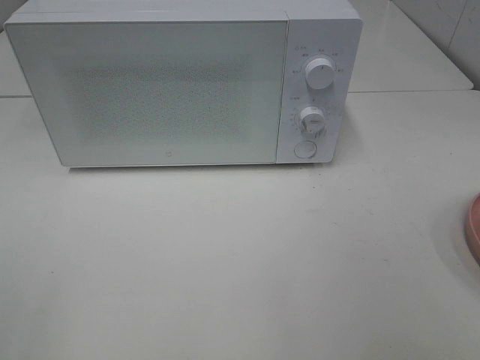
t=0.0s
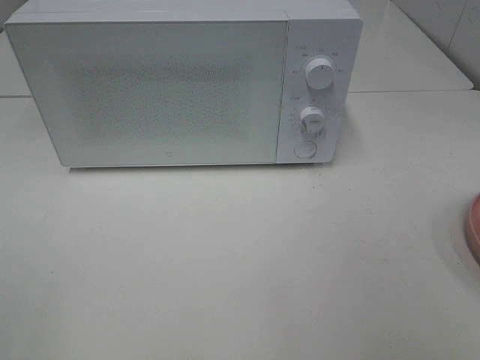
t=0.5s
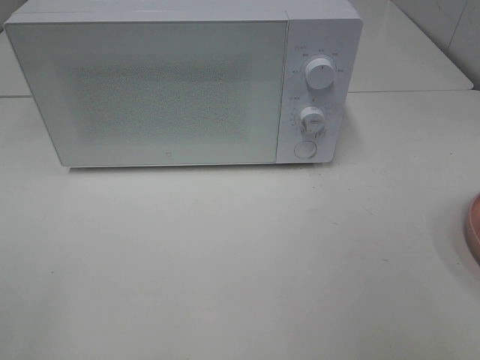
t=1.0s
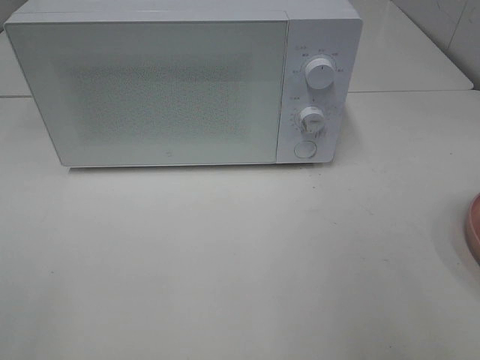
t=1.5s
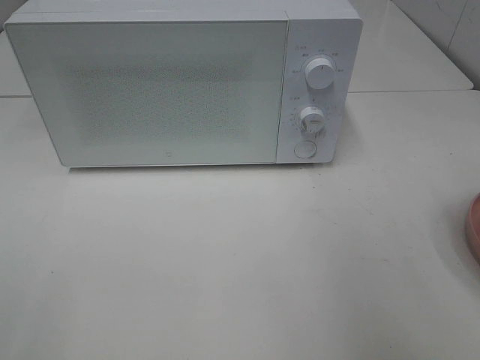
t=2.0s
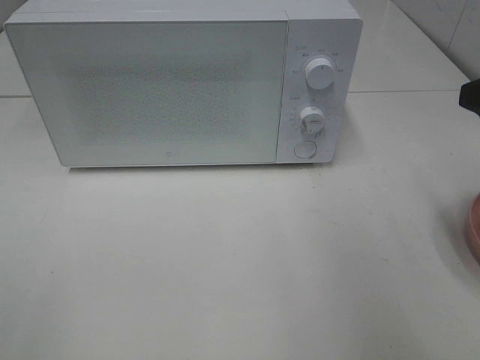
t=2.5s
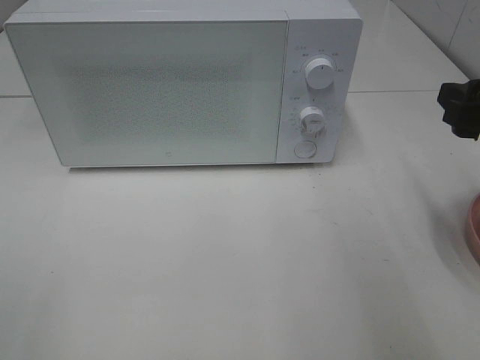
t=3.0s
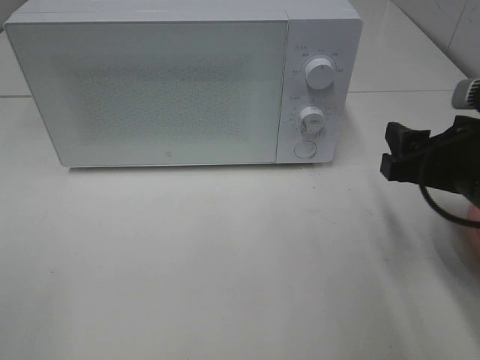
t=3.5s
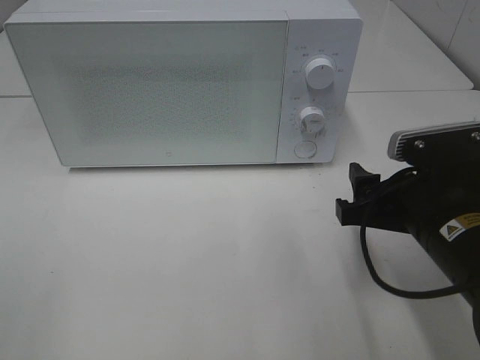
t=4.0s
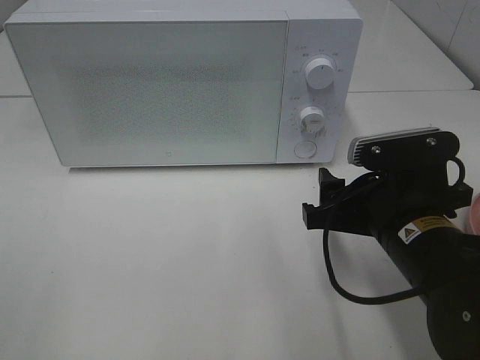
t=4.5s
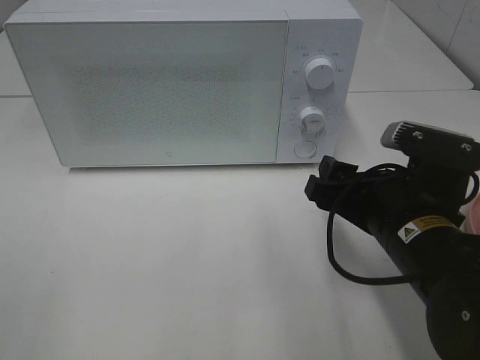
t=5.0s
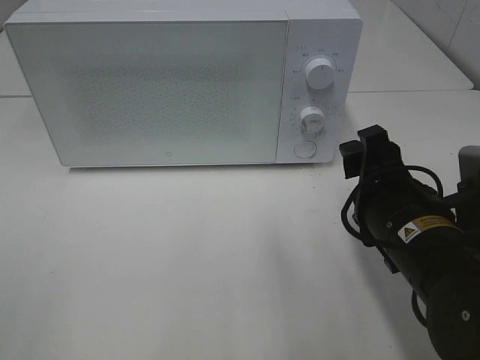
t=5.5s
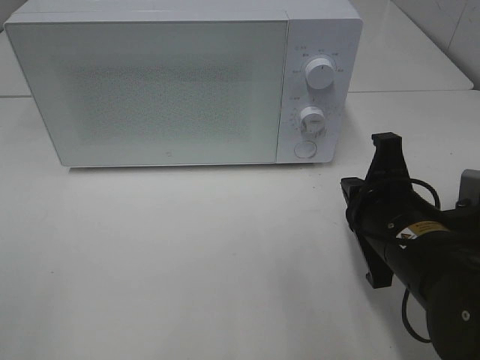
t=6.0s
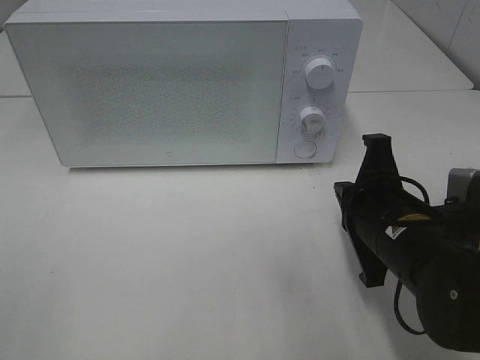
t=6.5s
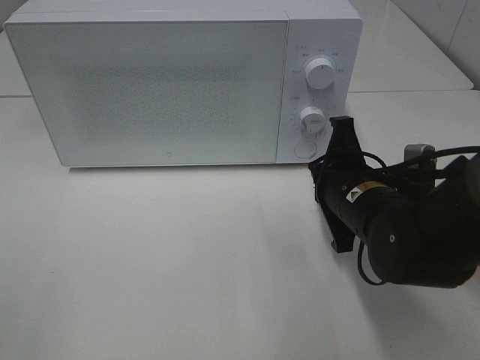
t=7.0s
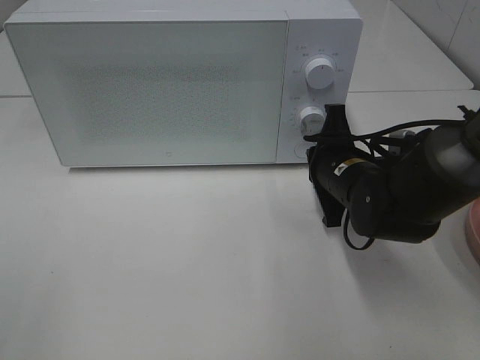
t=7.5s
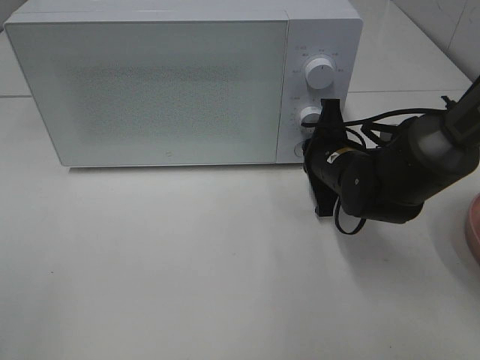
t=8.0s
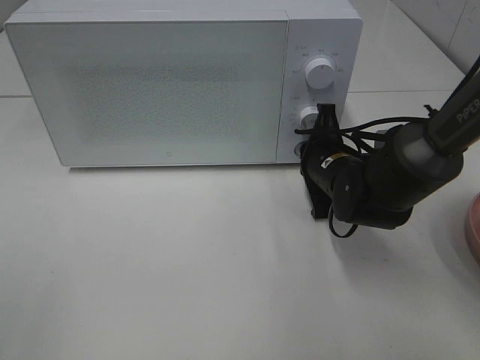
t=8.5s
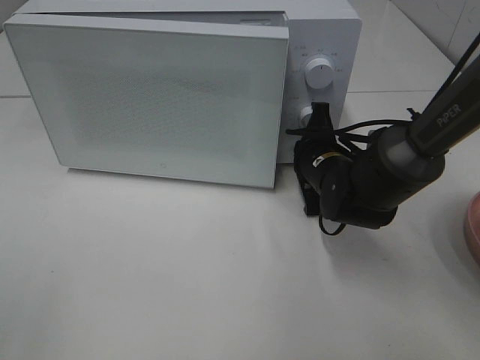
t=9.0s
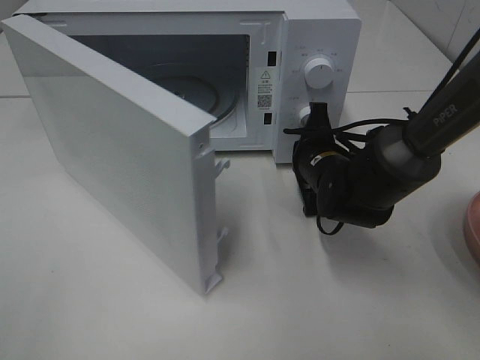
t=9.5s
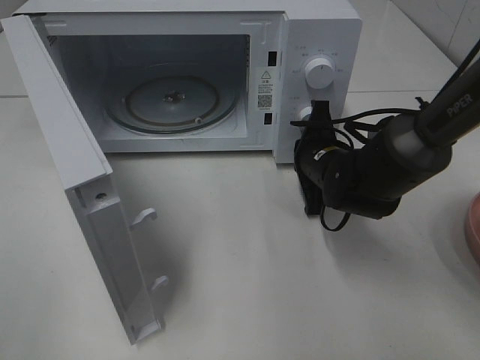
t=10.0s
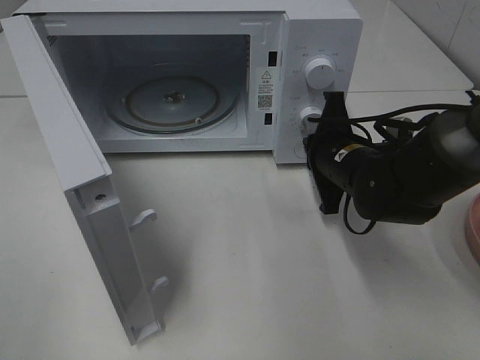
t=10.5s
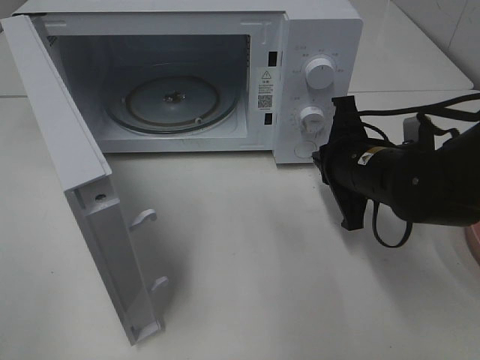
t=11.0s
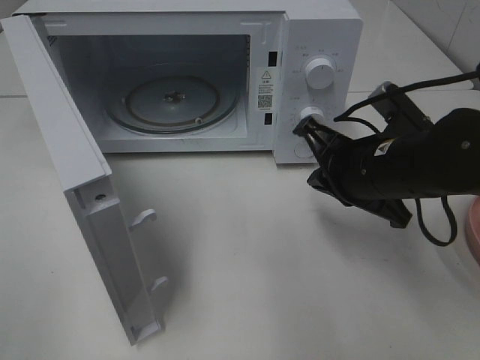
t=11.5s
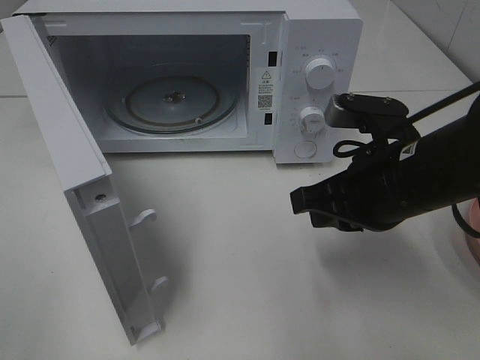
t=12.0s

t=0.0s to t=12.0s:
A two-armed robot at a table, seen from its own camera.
Task of the whole recording: Heat Sandwich.
Step, t=0.0s to t=10.5s: Right hand: press the switch.
t=2.0s to t=4.0s: The right gripper goes roughly 20 cm downward and to the left.
t=4.0s to t=6.0s: The right gripper closes its fingers.
t=6.0s to t=8.0s: The right gripper moves forward, approximately 15 cm.
t=10.0s to t=12.0s: The right gripper shifts some 15 cm backward and upward.

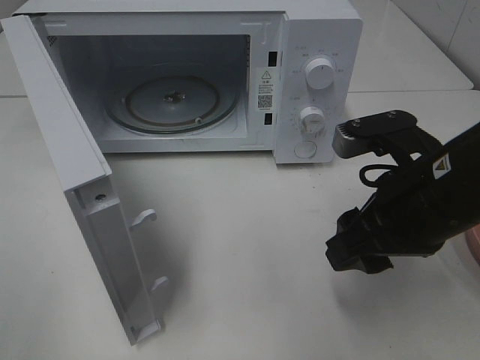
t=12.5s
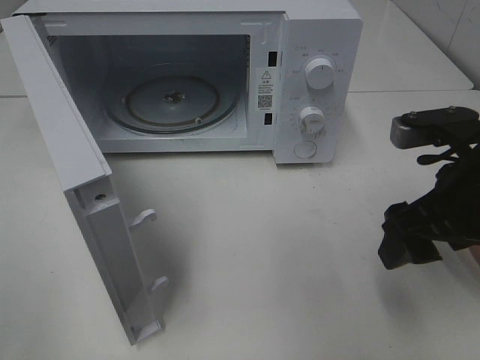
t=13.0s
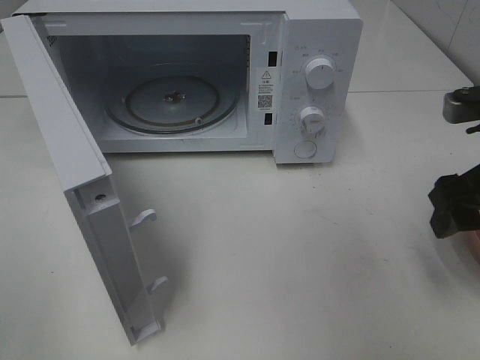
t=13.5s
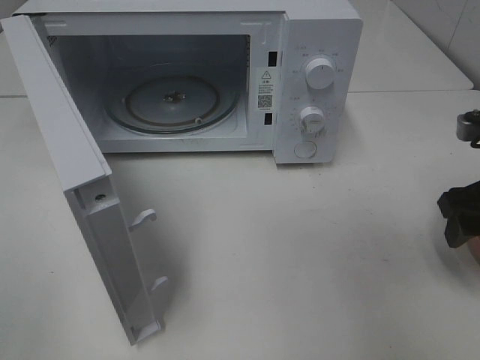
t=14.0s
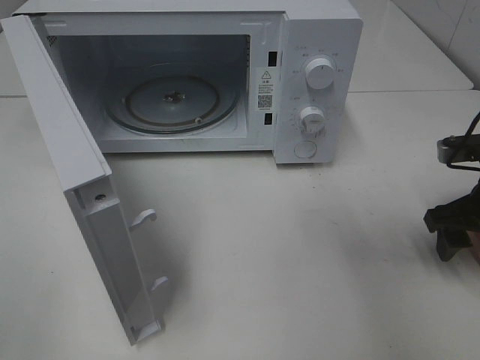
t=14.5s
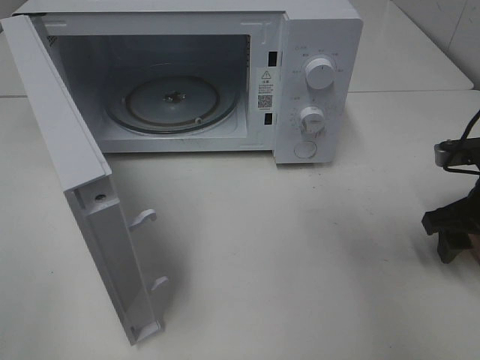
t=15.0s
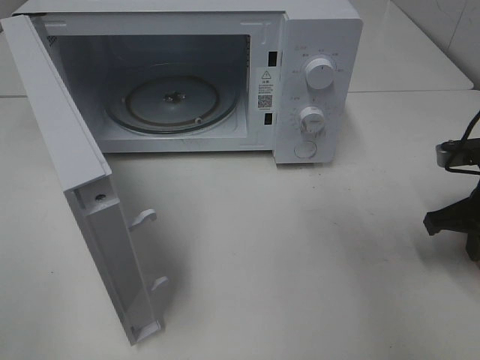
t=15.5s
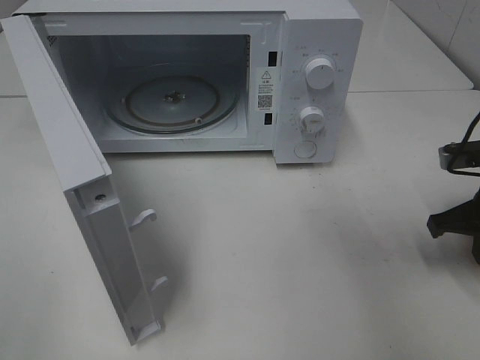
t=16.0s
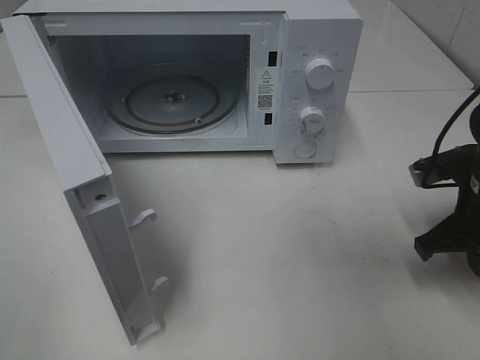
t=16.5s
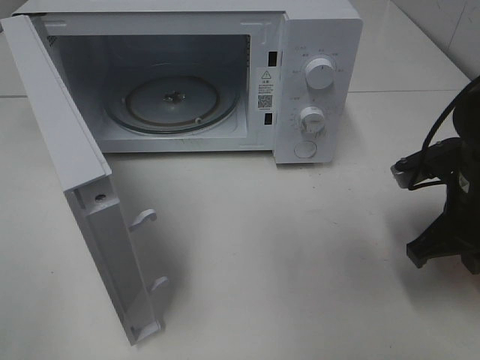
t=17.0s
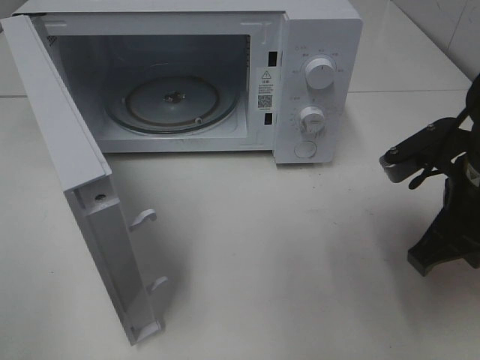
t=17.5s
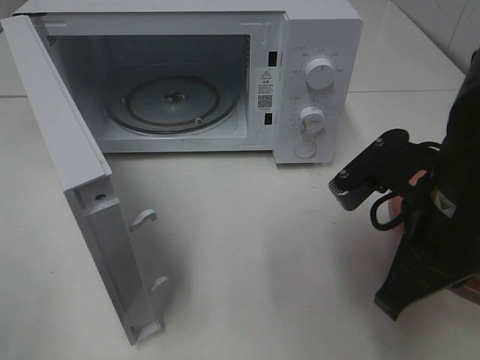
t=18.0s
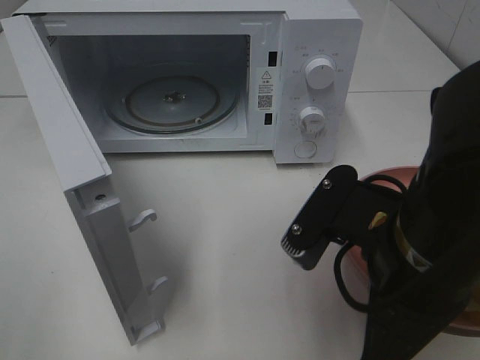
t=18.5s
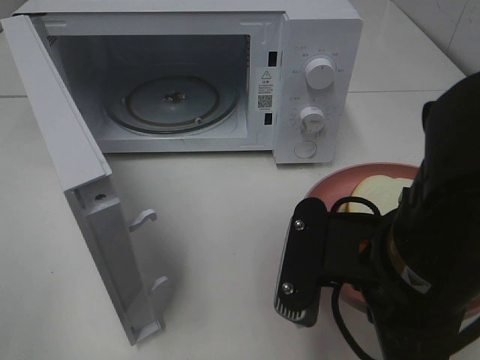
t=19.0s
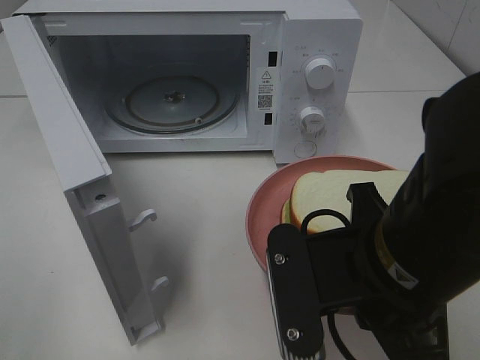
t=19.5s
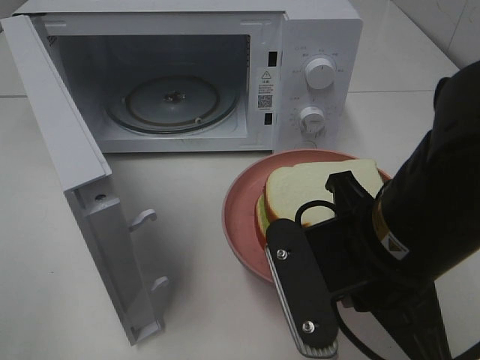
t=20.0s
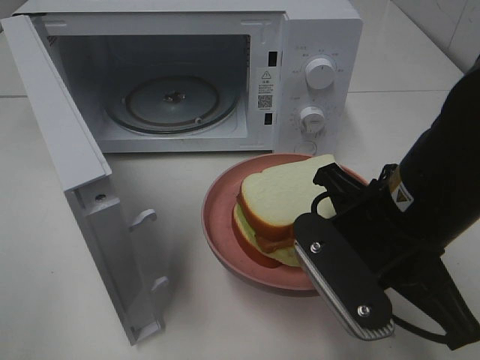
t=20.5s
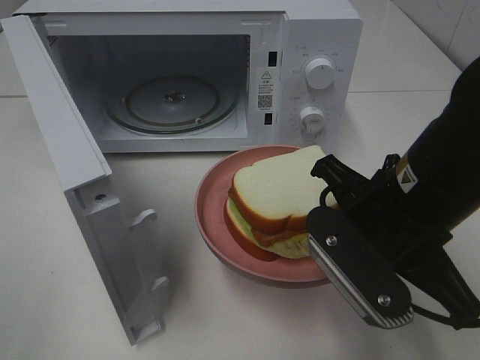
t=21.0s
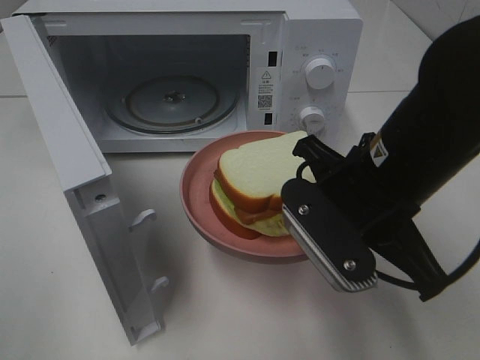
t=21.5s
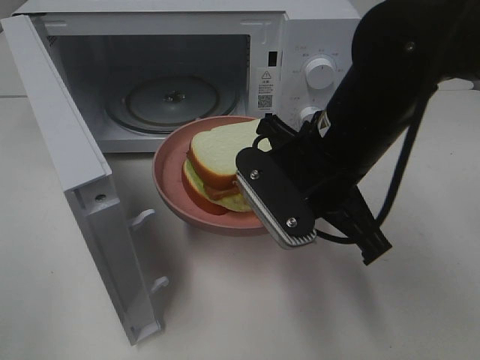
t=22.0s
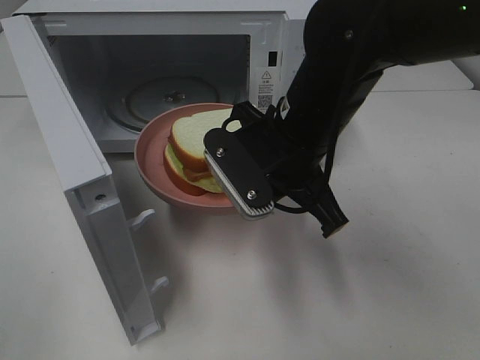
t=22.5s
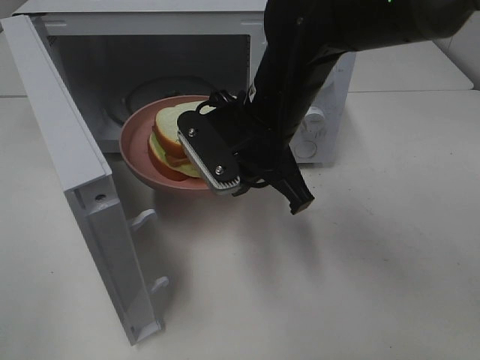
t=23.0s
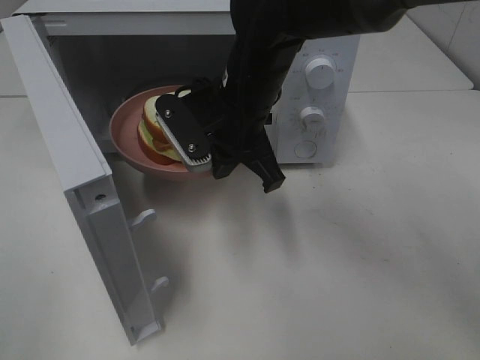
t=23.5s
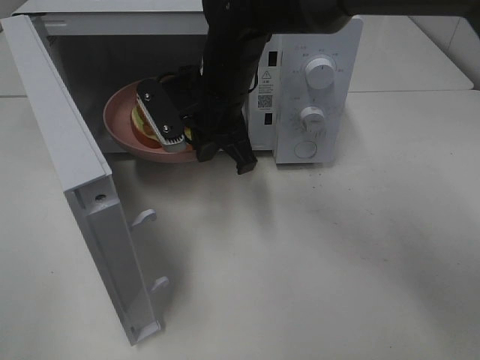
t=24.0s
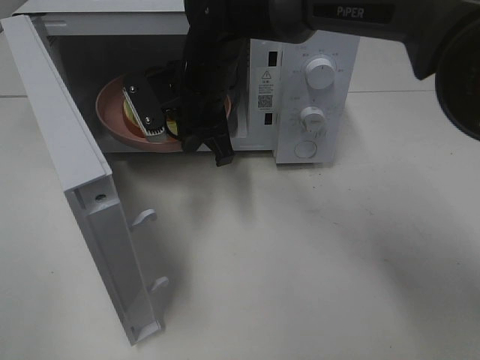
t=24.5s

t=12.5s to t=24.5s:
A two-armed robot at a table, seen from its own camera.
Task of the whole recording: Heat Sandwich.
Step, t=12.5s to t=15.0s: Right hand: grab the plate with the sandwich.
t=12.5s to t=14.5s: The right gripper shifts approximately 15 cm to the right, forward and downward.
t=14.5s to t=16.5s: The right gripper closes up.
t=16.5s to t=18.5s: The right gripper goes roughly 20 cm to the left, backward and upward.
t=20.5s to t=22.5s: The right gripper is displaced forward and to the left by about 10 cm.
t=22.5s to t=24.5s: The right gripper goes roughly 15 cm forward and to the left.

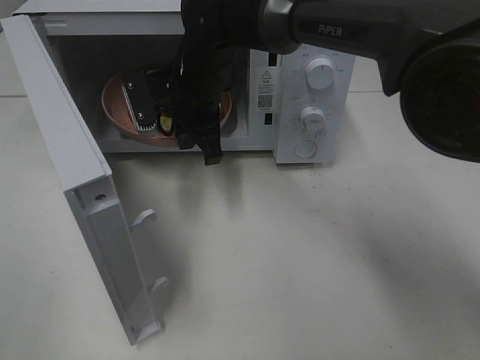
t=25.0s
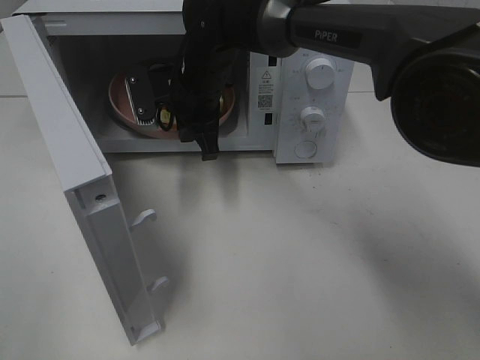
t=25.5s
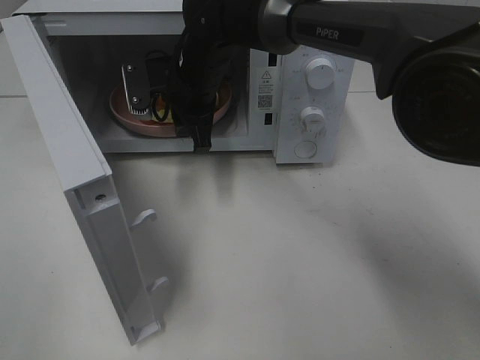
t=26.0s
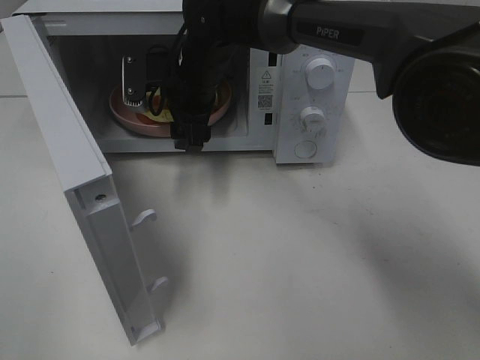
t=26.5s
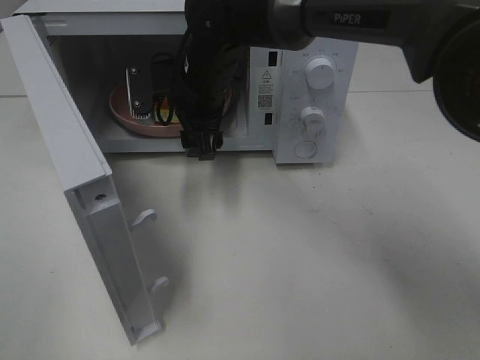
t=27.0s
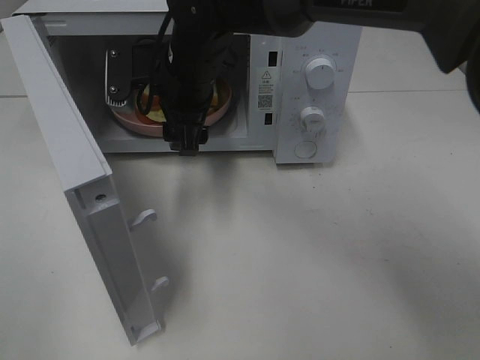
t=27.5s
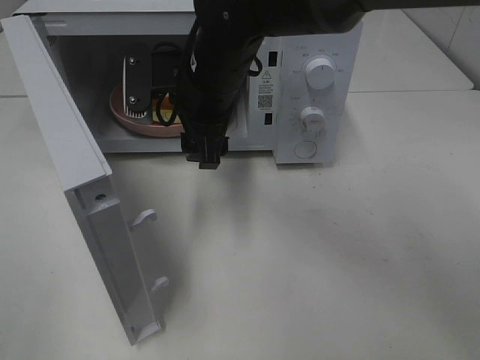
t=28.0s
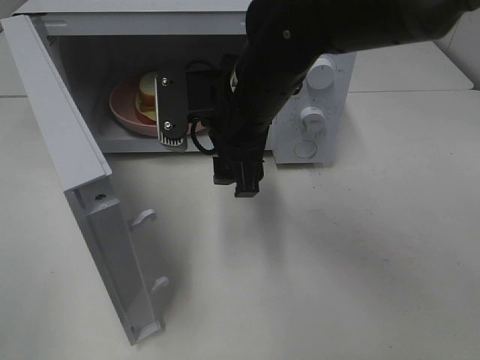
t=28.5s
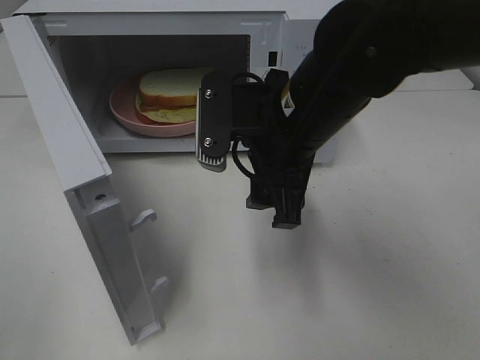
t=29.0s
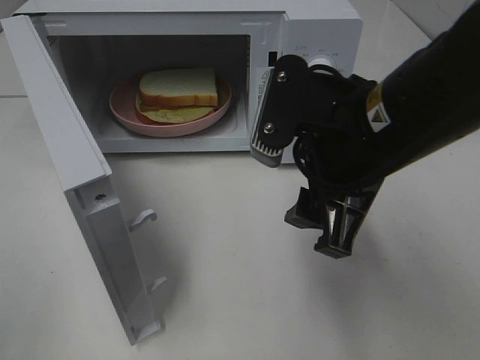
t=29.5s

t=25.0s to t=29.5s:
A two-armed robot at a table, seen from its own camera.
Task of the whole recording: Heat Sandwich.
Step, t=25.0s to t=27.5s: Right hand: place the plate in the microwave.
t=25.0s to t=27.0s: The right gripper opens up.
t=27.0s to t=29.5s: The right gripper moves backward and to the right, approximately 25 cm.
